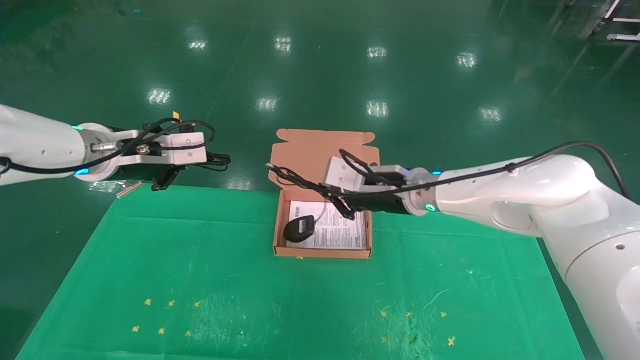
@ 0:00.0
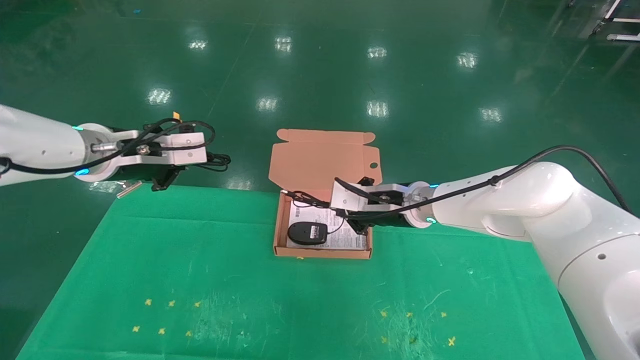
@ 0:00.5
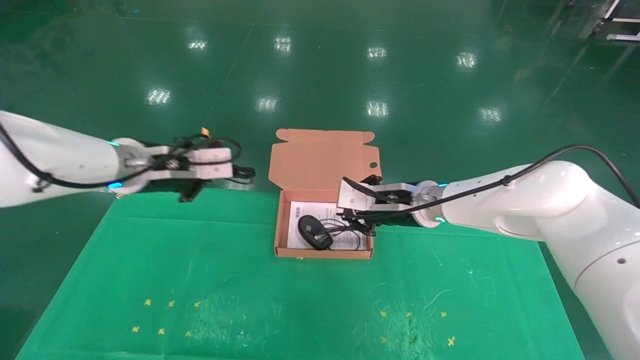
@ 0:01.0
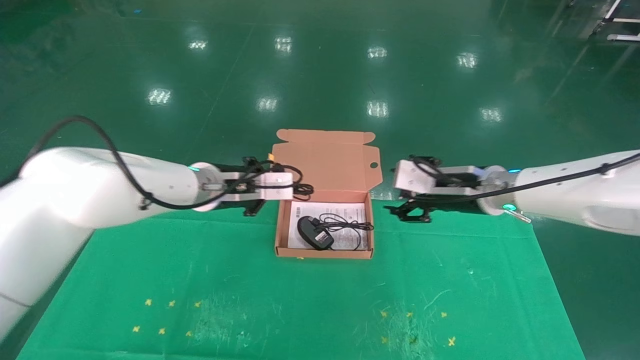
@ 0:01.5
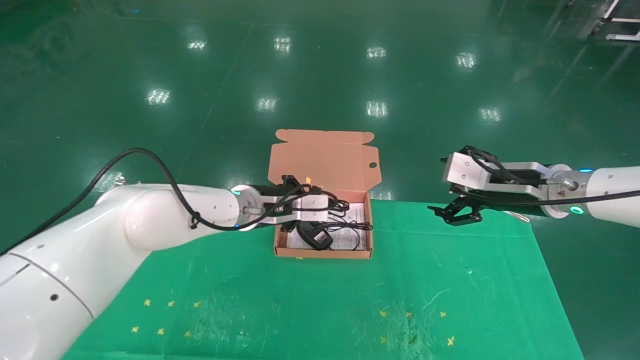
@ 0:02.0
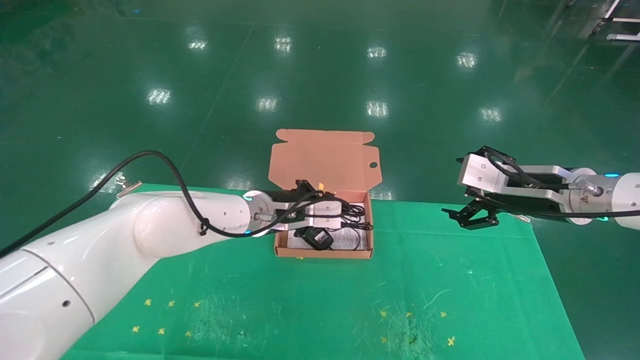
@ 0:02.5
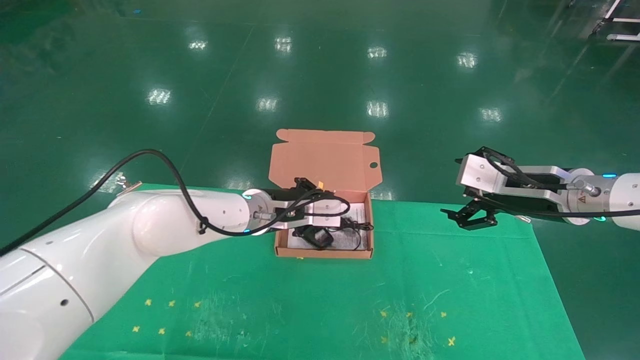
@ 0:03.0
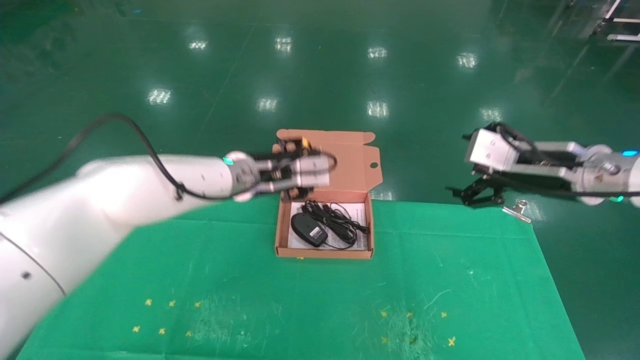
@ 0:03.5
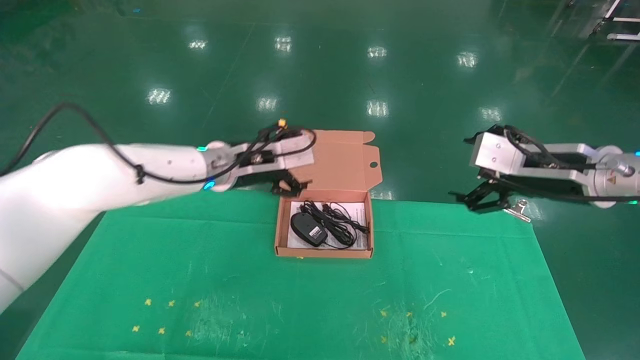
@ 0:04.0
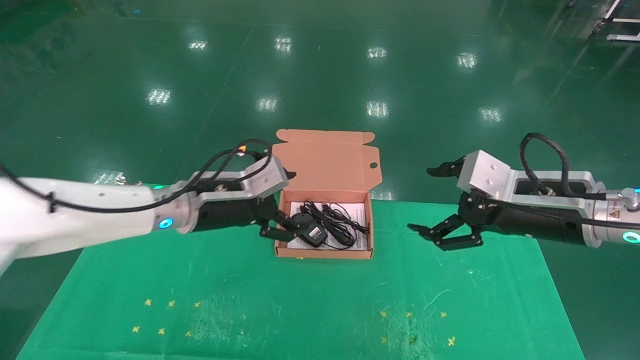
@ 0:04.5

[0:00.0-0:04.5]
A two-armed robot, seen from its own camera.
Task of the whole recording: grasp data cable left put into box grasp mouse right put into box.
Step, 0:00.0 to 0:02.5: Place the mouse and power cord into the box.
0:00.0 to 0:02.0: The left gripper is displaced to the right, downward and forward by about 20 cm. Meanwhile the right gripper heads to the right, covering some 20 cm, and opens its fingers.
0:02.0 to 0:04.5: The right gripper goes some 5 cm backward; the left gripper travels to the left and backward by some 10 cm, and opens its fingers.
